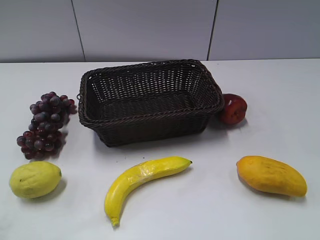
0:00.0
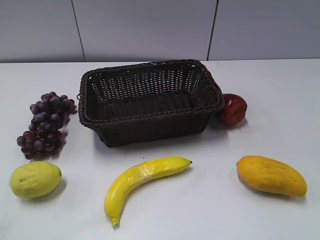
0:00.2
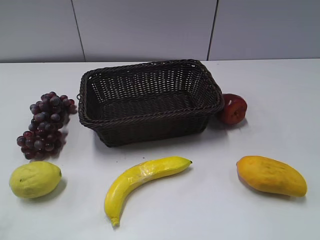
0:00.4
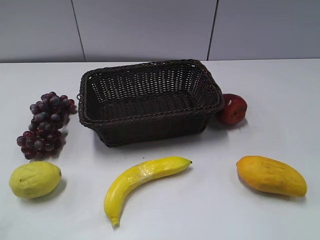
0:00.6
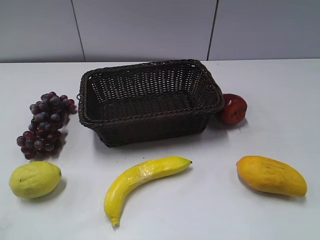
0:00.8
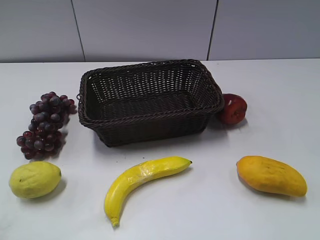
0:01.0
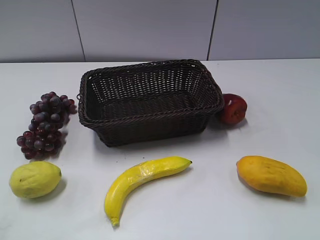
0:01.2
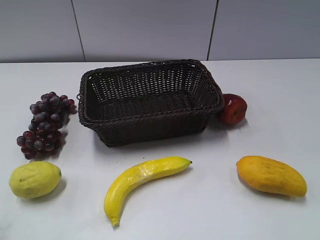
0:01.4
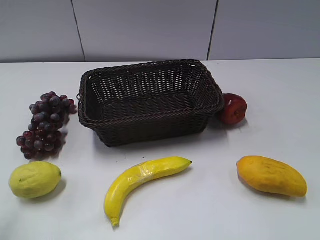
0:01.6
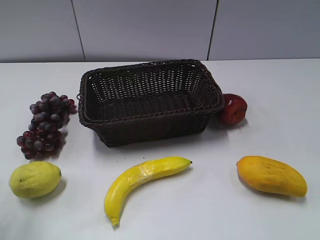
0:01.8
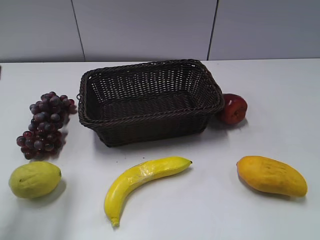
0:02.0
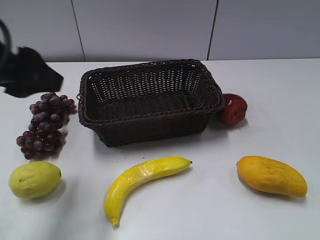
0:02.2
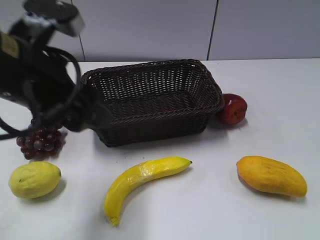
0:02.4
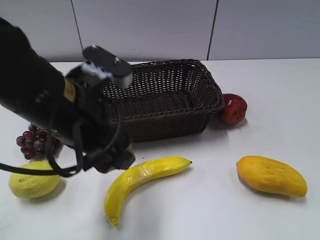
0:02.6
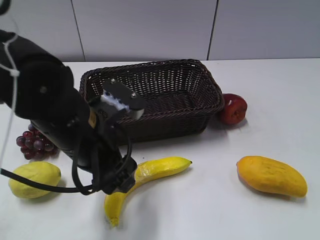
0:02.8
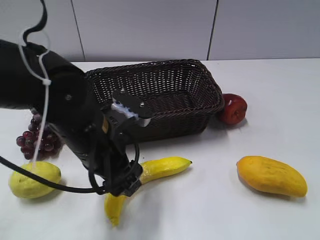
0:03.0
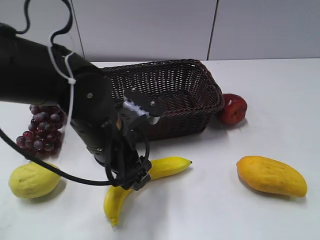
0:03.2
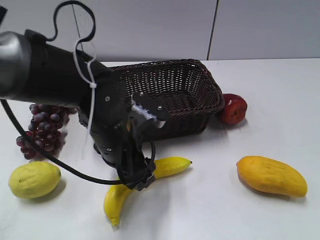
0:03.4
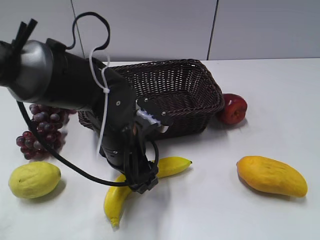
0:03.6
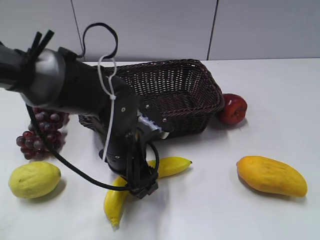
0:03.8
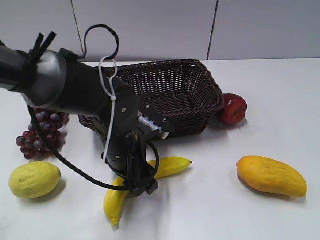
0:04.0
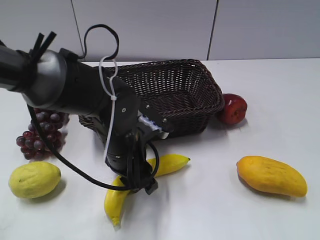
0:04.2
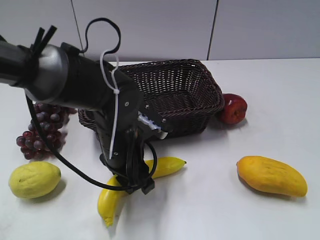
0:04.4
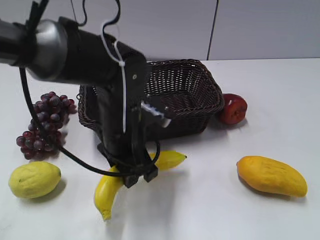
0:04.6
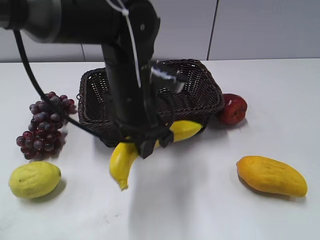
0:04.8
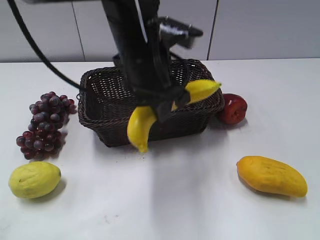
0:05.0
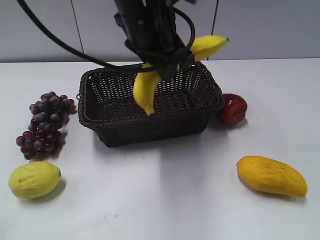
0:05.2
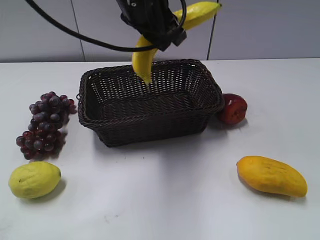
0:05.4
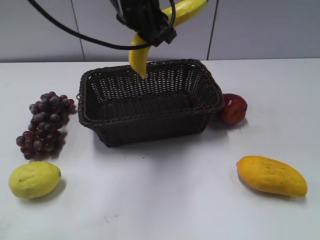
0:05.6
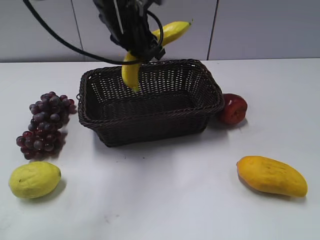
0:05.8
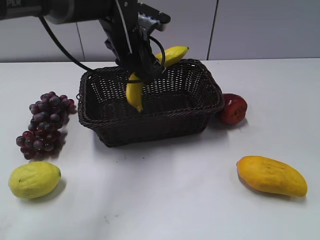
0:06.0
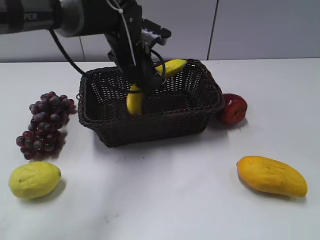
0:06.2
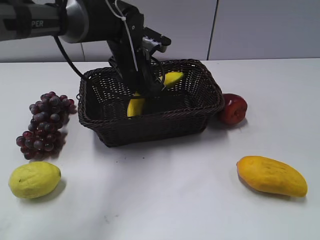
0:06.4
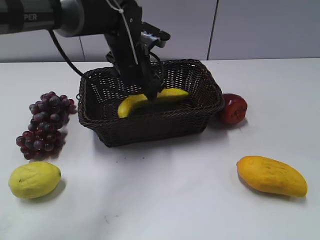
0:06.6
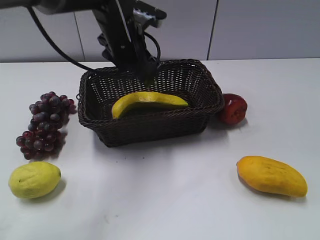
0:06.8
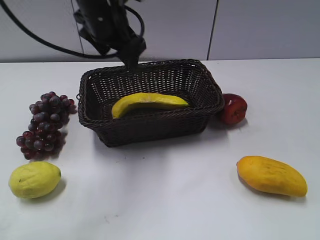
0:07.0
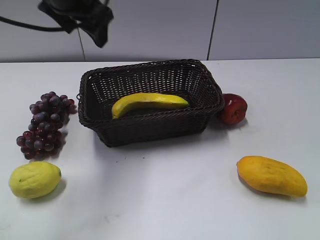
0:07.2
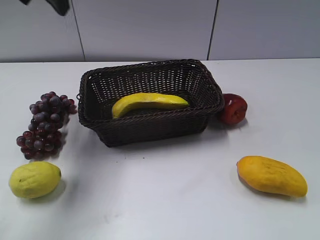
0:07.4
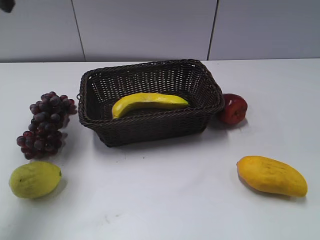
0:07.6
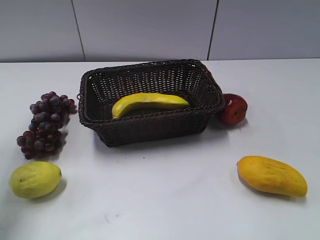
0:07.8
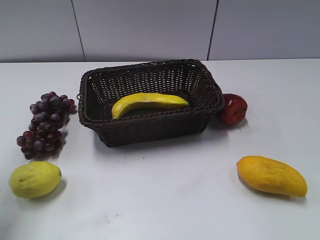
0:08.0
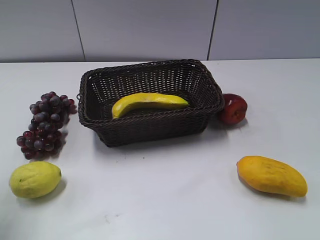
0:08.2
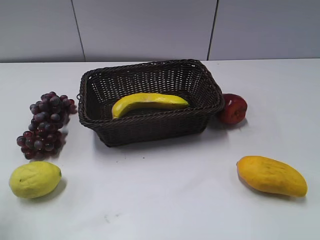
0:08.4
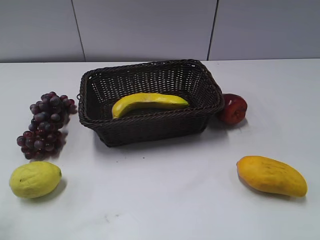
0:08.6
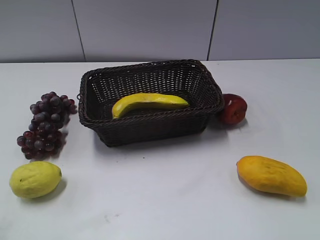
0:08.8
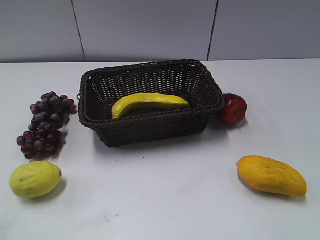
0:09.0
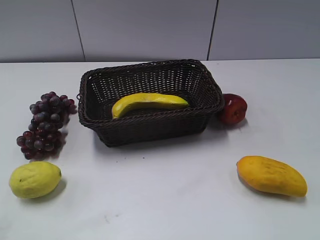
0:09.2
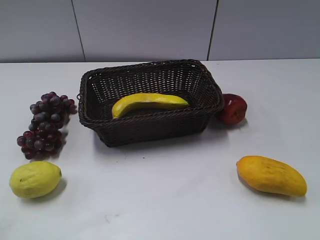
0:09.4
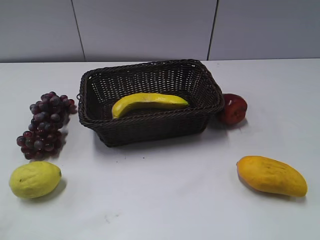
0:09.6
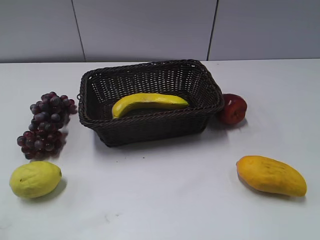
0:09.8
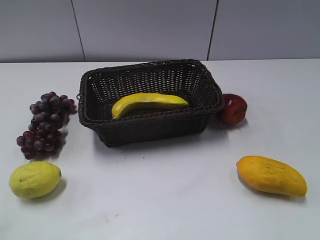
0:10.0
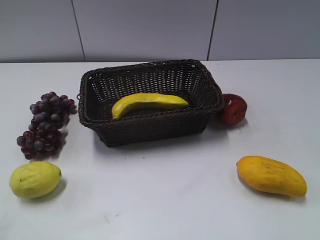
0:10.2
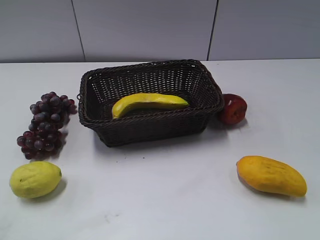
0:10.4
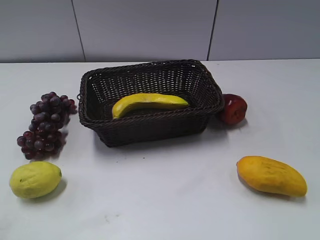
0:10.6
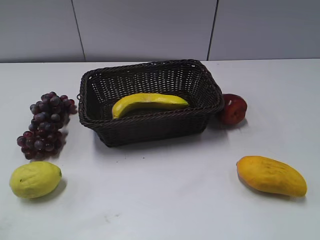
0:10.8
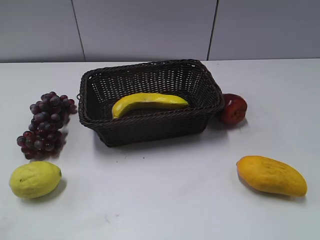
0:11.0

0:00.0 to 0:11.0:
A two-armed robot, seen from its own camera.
Step, 0:02.0 to 0:04.2: Grasp the banana with left gripper.
Step, 0:04.4 to 0:06.8: Place the banana in the basket with left gripper.
0:01.6 to 0:03.2: The left gripper moves to the right, downward and forward, roughly 30 cm.
0:03.2 to 0:04.8: The left gripper shifts by about 5 cm, and closes its fingers.
0:04.8 to 0:06.2: The left gripper travels forward by about 15 cm.
0:06.2 to 0:07.8: The left gripper shifts approximately 35 cm to the left, upward and backward, and opens.
0:07.8 to 0:09.4: The left gripper heads backward, covering some 25 cm.

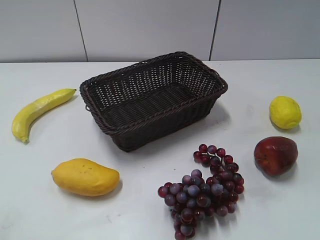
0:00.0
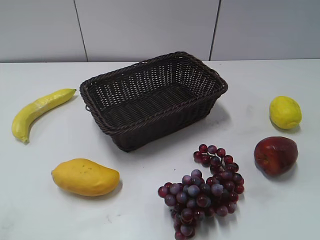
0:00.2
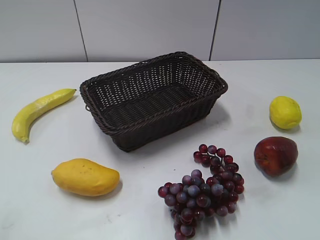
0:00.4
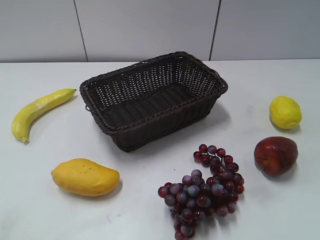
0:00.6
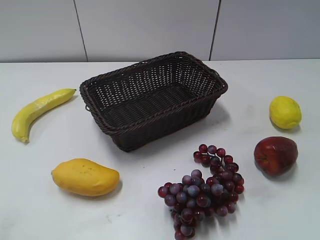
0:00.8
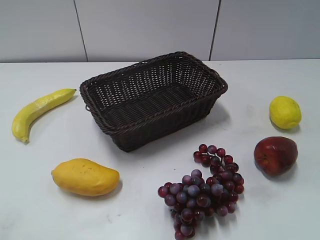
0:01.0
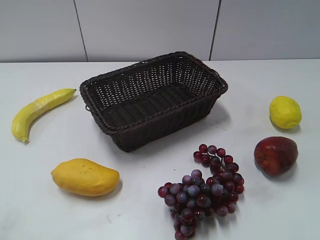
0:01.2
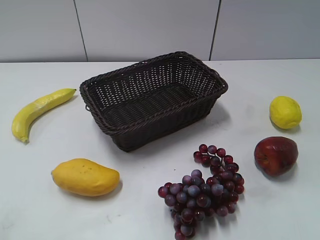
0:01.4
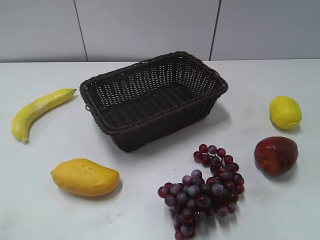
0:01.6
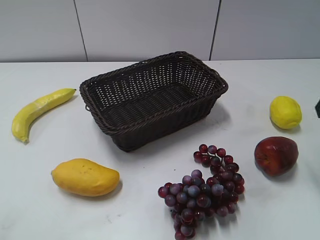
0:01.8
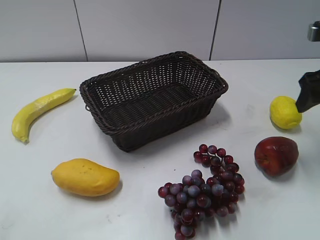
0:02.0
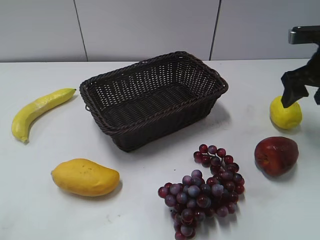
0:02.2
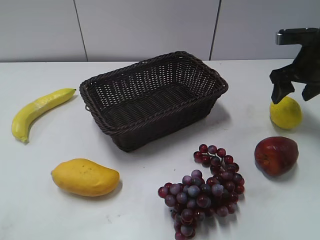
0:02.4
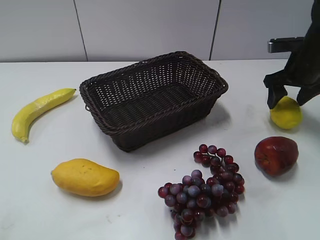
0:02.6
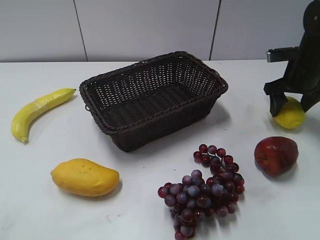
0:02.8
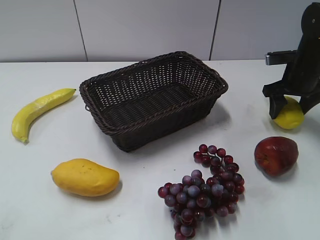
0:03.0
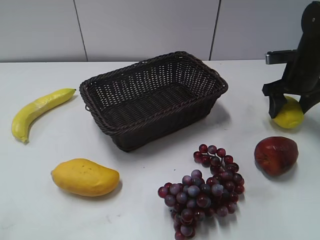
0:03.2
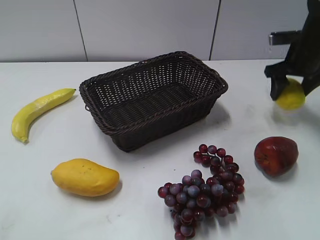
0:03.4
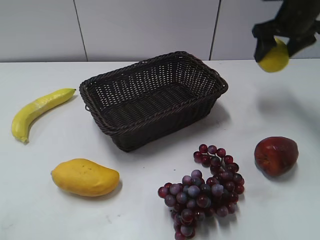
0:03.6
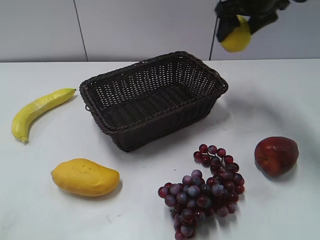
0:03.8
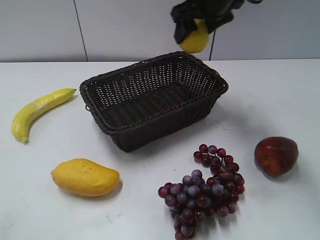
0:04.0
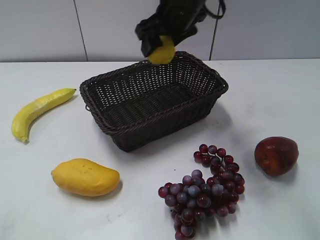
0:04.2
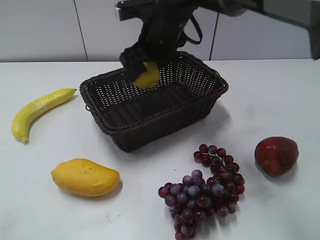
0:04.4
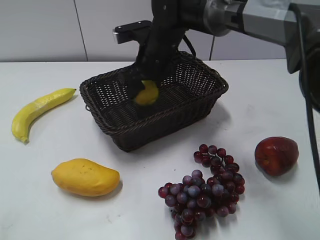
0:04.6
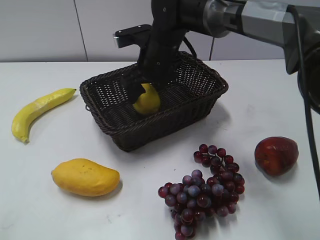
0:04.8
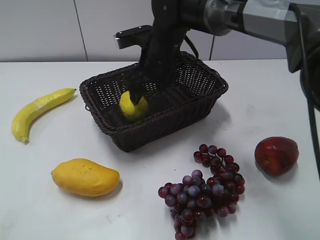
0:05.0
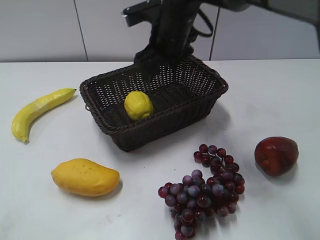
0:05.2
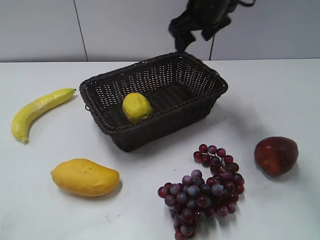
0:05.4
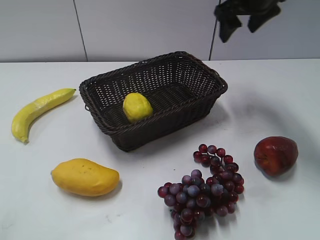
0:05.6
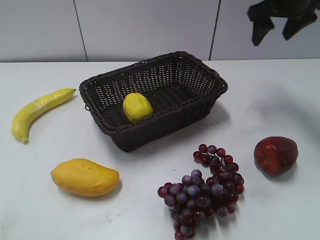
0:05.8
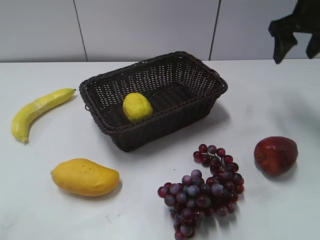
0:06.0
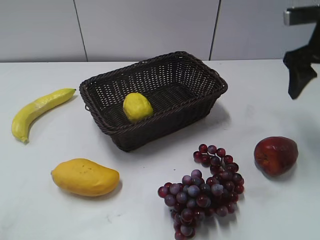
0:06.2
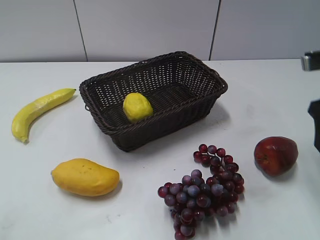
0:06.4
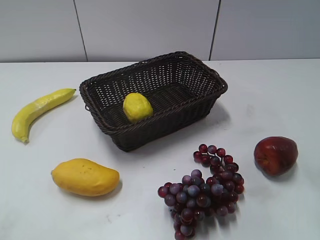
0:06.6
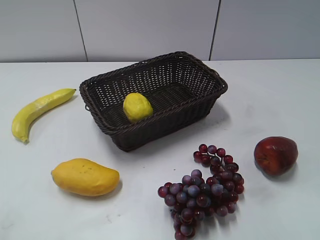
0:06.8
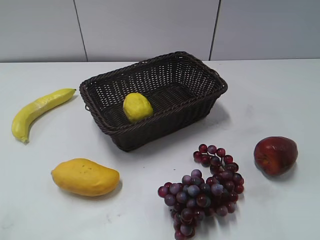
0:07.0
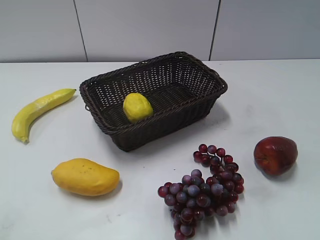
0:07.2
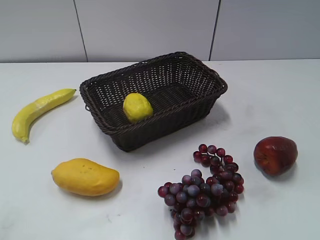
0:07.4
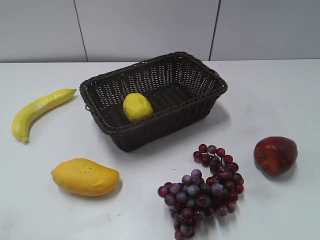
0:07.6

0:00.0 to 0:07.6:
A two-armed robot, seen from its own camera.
Step, 0:01.8 to 0:03.0: Grasp the lemon with right gripper.
Step, 0:03.2 to 0:05.0: Place the lemon in the basket with right gripper.
0:01.6 to 0:03.0: The right gripper heads forward and downward, covering approximately 30 cm.
0:03.0 to 0:04.6: The right gripper goes some 30 cm to the left.
0:04.6 to 0:06.0: The right gripper goes roughly 25 cm to the right.
0:06.0 to 0:07.6: The right gripper goes roughly 40 cm backward.

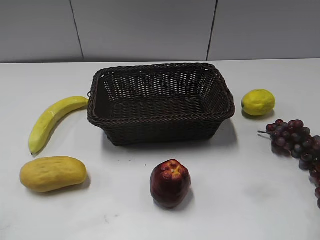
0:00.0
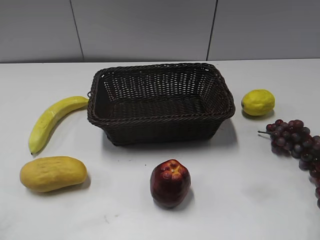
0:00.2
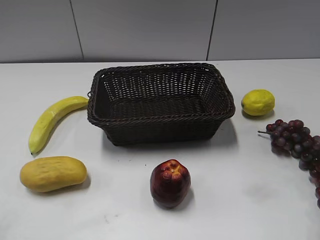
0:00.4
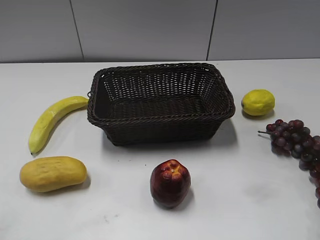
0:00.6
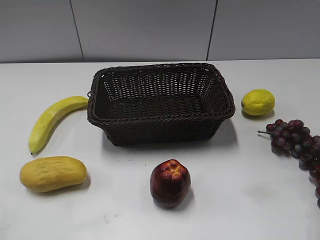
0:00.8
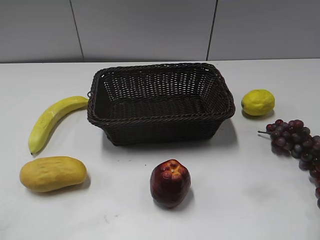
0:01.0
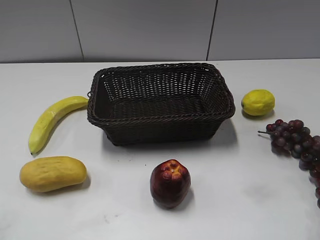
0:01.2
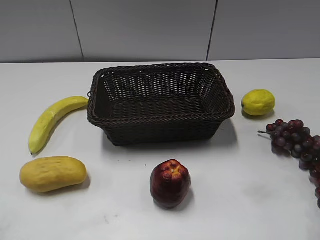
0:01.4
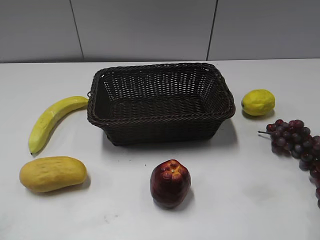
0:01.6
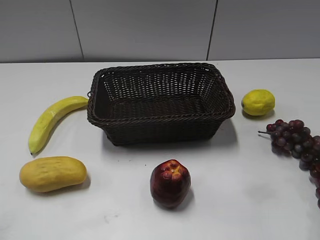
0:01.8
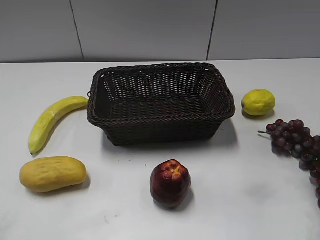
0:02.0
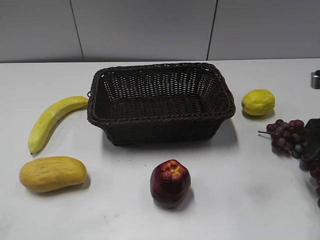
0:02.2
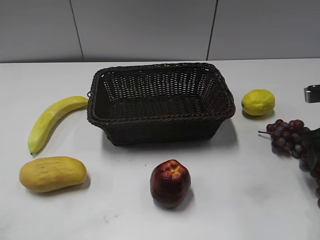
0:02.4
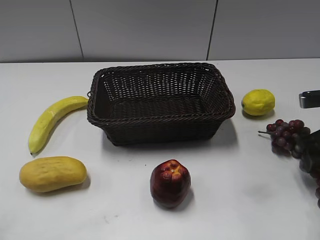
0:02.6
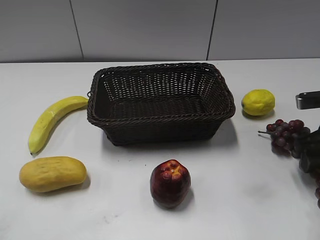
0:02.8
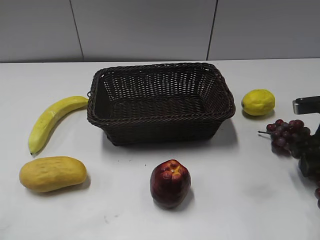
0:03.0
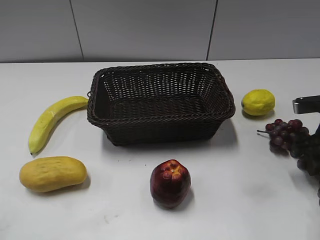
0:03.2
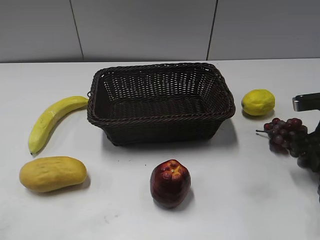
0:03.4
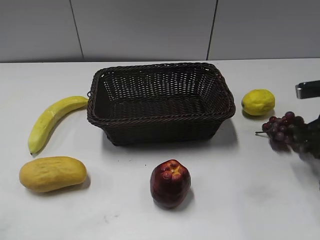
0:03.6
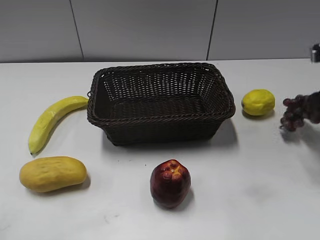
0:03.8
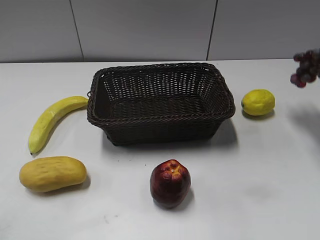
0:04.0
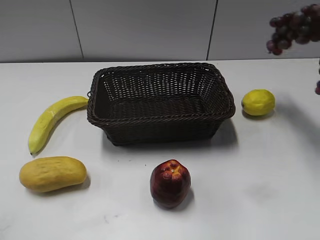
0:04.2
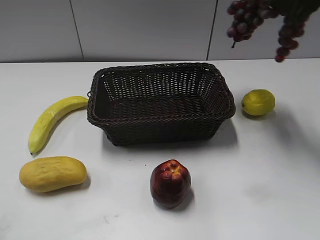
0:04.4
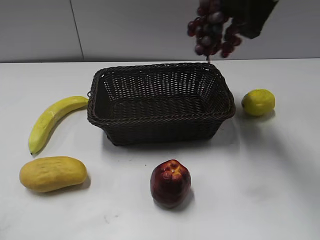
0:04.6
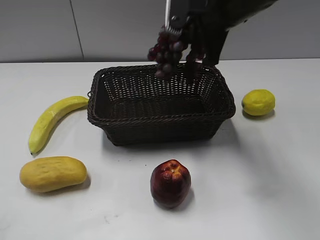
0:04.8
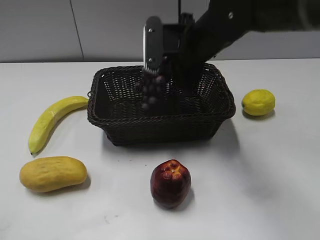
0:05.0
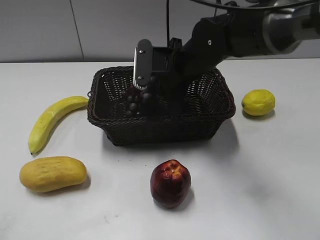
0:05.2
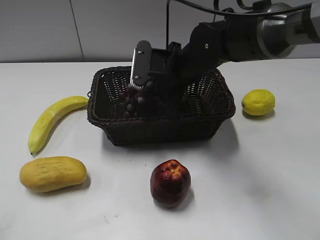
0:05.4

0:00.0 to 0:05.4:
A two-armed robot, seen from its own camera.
0:01.4 to 0:02.8: The right gripper travels forward and downward by approximately 20 cm.
0:02.8 to 0:04.0: The right gripper moves upward, approximately 20 cm, and closes.
0:04.0 to 0:05.4: The right gripper heads to the left and downward, covering roughly 30 cm.
